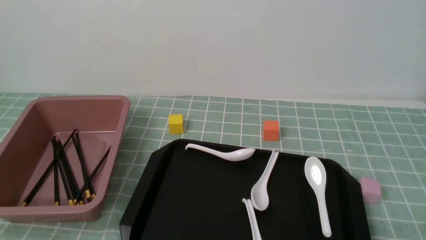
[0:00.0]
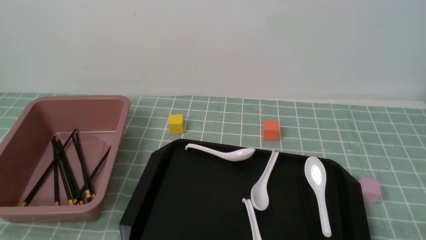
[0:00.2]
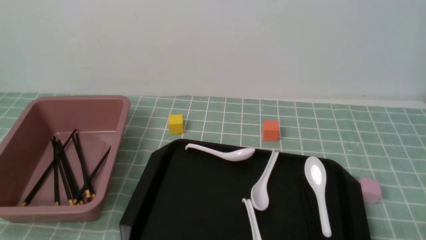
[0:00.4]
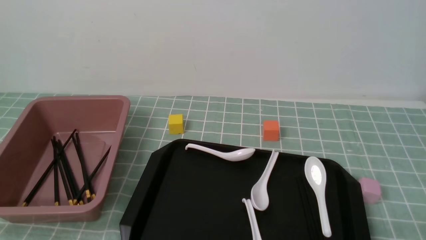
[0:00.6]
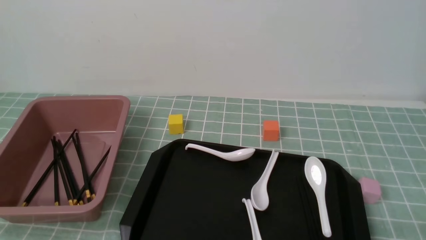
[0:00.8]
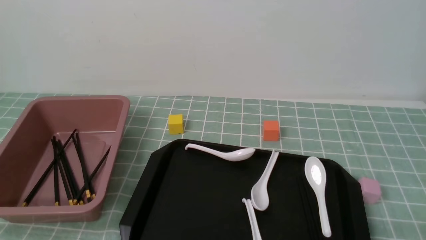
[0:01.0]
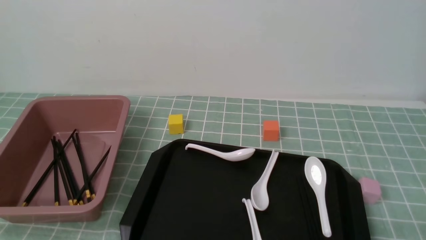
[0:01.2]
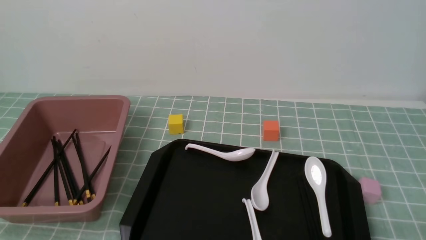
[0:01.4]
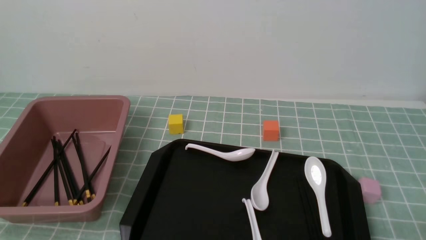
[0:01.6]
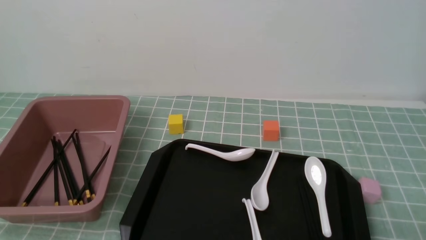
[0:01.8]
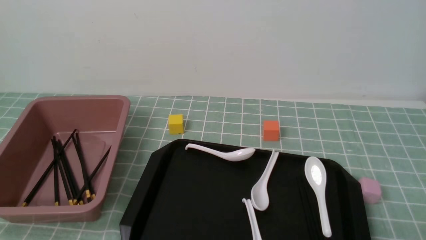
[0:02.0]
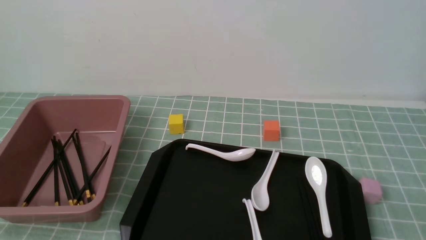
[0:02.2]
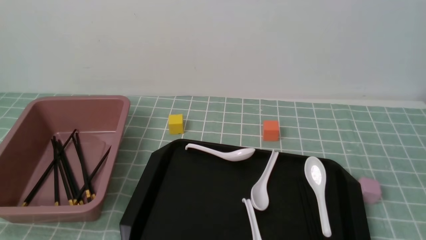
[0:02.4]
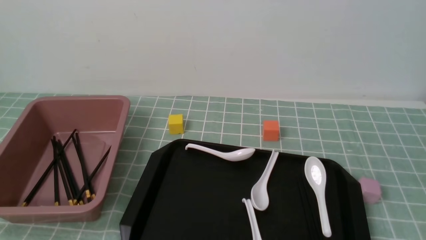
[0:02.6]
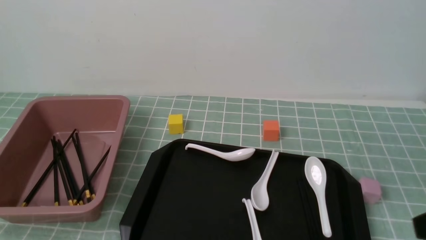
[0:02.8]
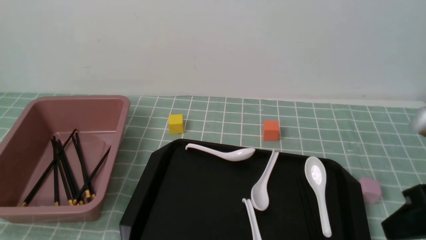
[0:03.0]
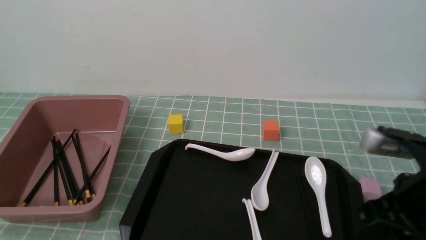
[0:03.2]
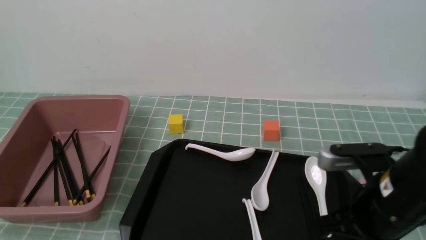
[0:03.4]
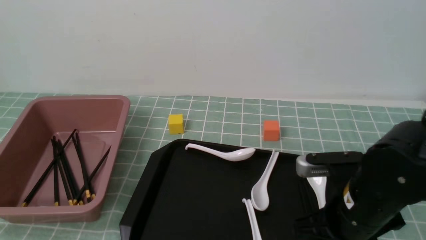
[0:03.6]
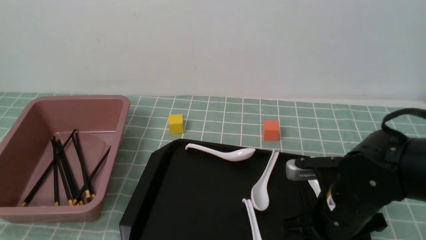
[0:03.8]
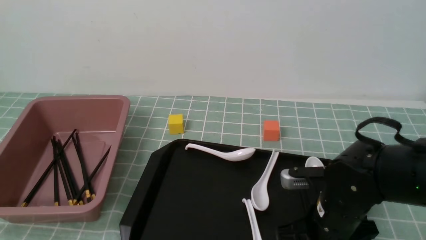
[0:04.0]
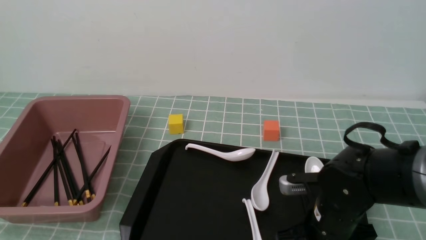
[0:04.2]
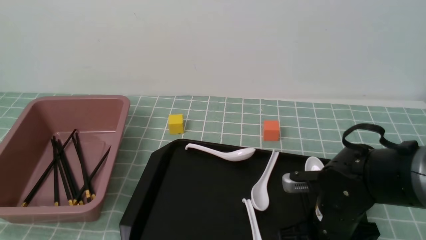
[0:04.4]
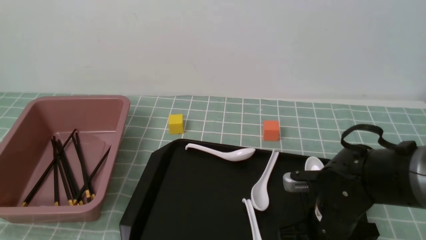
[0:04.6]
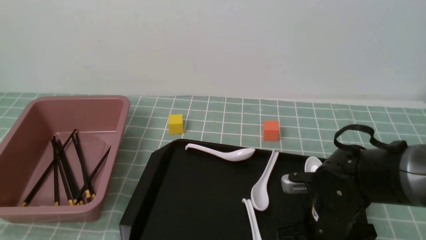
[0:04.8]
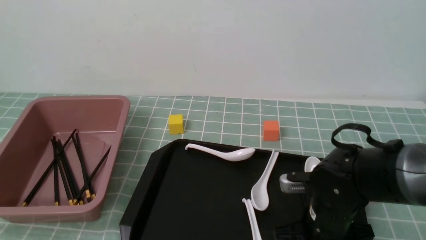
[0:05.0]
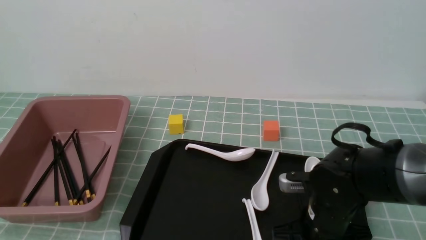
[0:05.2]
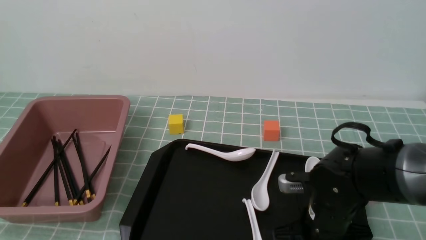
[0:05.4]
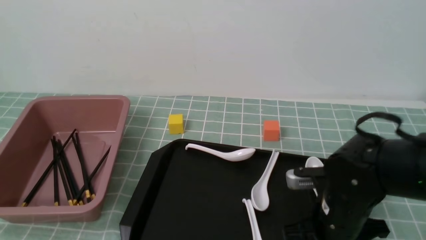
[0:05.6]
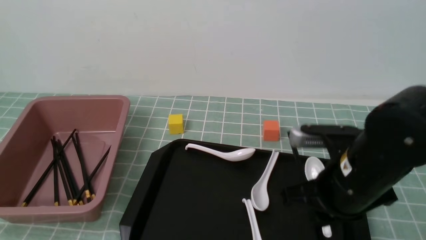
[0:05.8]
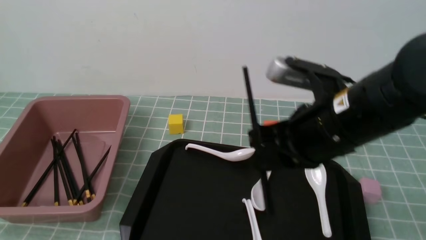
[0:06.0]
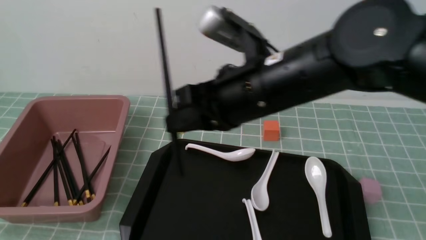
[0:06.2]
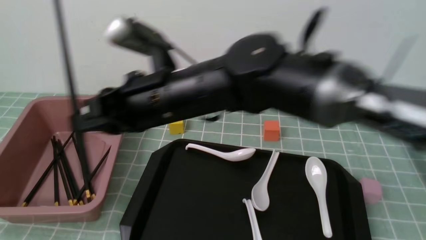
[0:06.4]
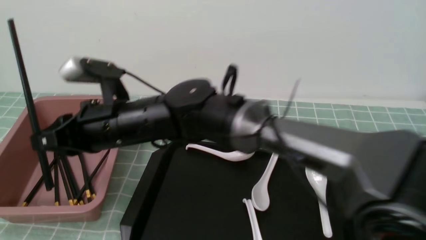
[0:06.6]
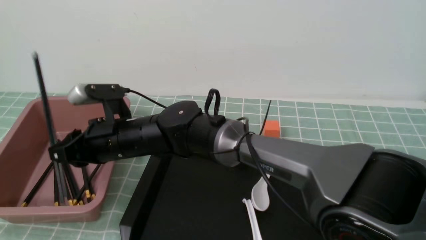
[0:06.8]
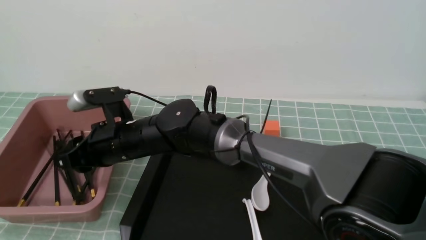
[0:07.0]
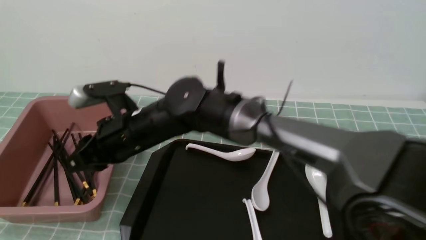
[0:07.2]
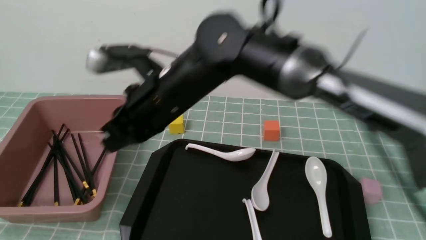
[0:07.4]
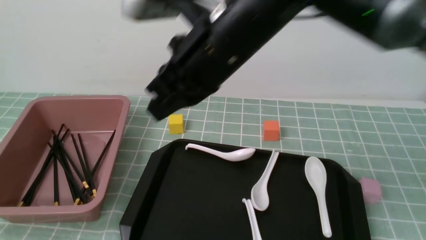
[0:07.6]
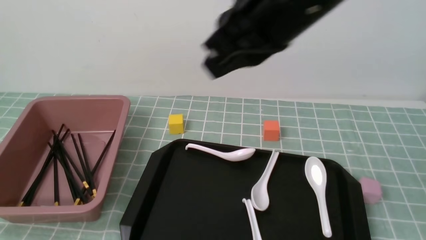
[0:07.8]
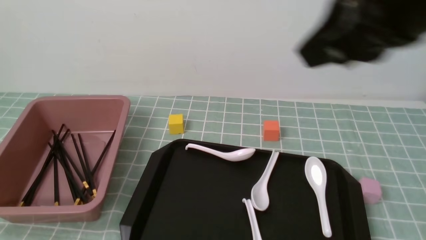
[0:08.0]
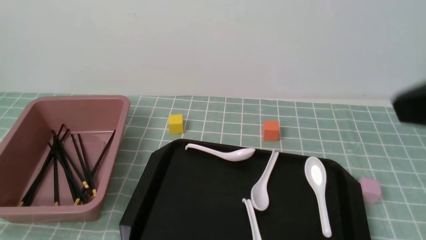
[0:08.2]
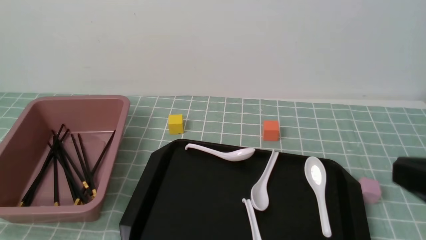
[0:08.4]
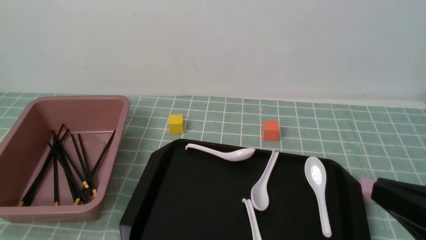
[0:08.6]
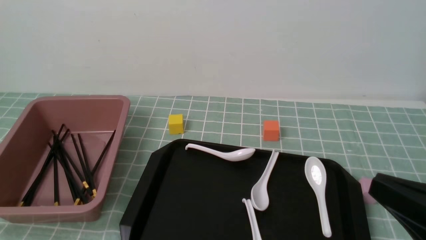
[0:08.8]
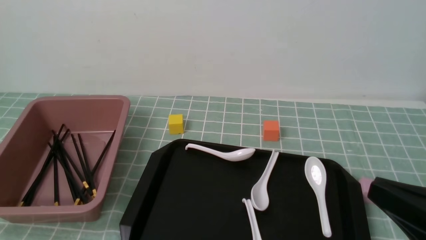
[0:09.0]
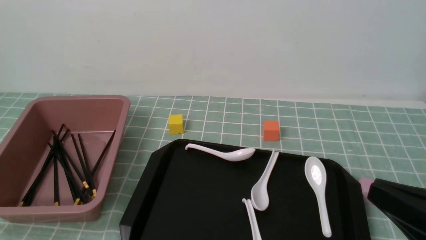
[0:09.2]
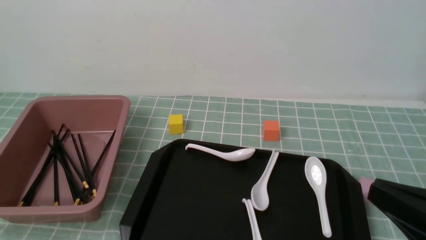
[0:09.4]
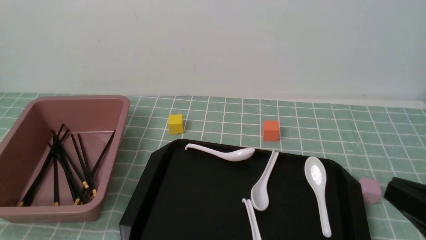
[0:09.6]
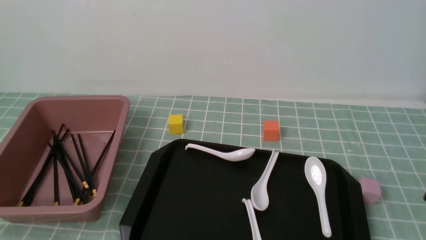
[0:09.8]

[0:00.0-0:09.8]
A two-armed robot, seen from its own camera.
Step, 0:00.0 to 0:05.8: use the right arm to grab a pair of chopsticks.
Step, 0:06.0 to 0:07.2: use the right arm to put the chopsticks into the lunch box.
0:02.8 to 0:04.2: The right gripper travels downward, to the left and forward by approximately 25 cm, and opens.
0:04.2 to 0:05.6: The right gripper closes.
0:05.6 to 0:07.0: The right gripper shifts approximately 25 cm to the left, and opens its fingers.
0:07.0 to 0:08.4: The right gripper travels to the right and backward by some 40 cm, and closes.
0:08.4 to 0:09.8: The right gripper moves downward, approximately 10 cm.

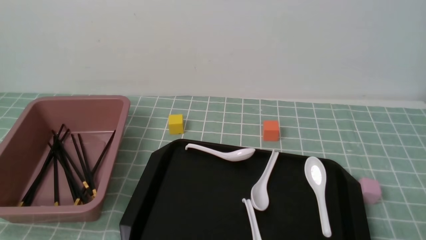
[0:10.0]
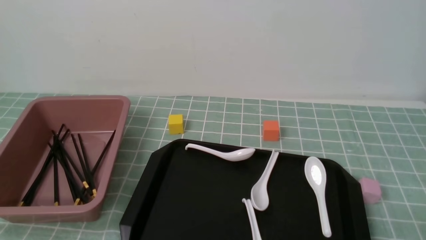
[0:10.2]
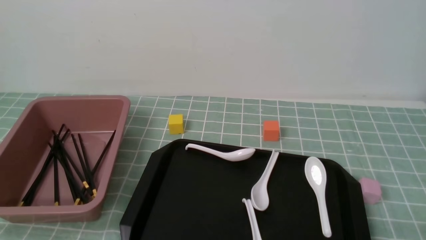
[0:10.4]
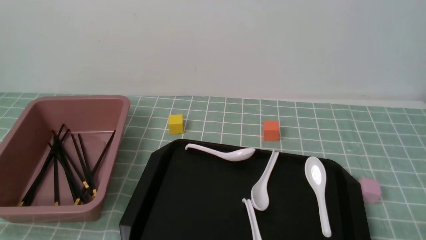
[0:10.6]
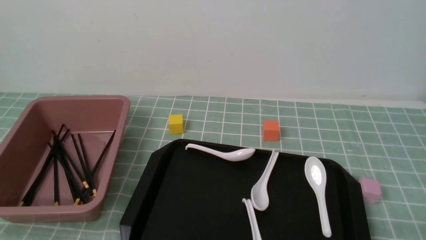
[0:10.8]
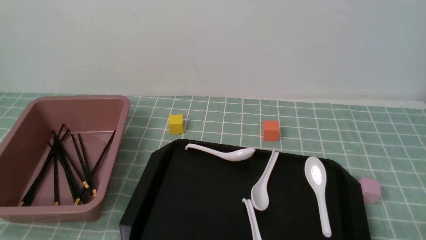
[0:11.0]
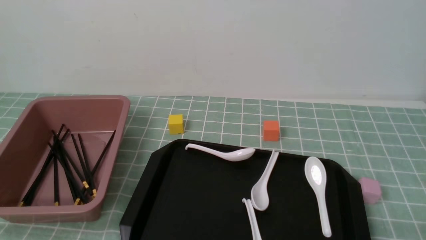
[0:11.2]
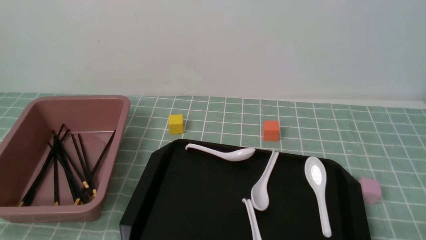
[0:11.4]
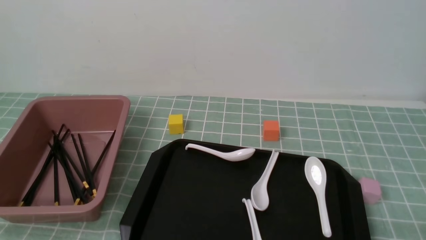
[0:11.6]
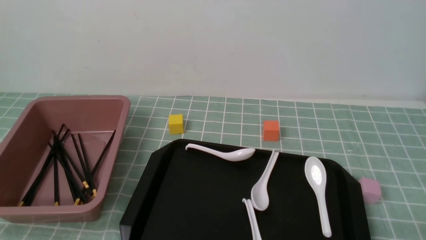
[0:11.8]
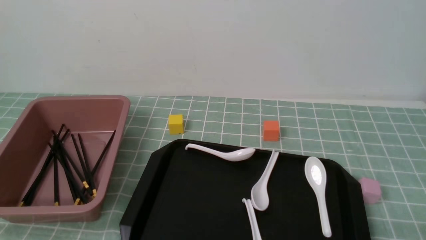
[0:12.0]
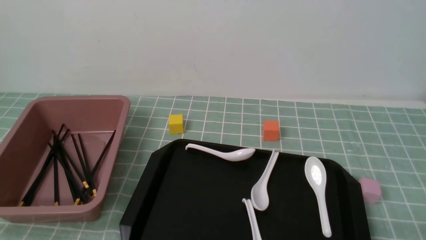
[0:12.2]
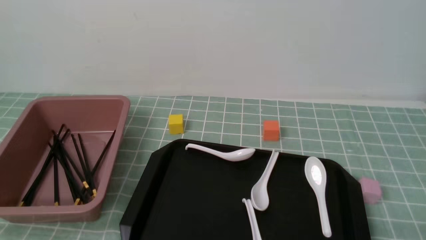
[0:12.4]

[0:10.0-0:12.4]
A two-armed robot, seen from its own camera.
0:11.2 to 0:12.4: Both grippers stay about where they are.

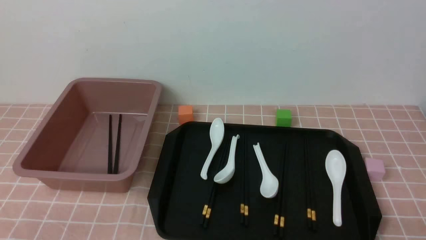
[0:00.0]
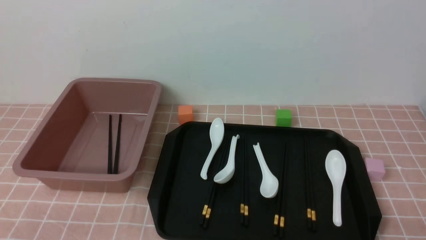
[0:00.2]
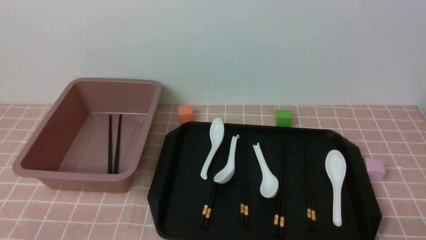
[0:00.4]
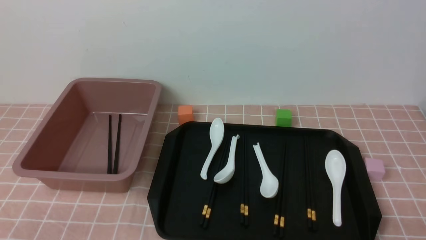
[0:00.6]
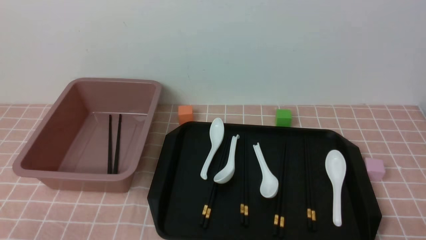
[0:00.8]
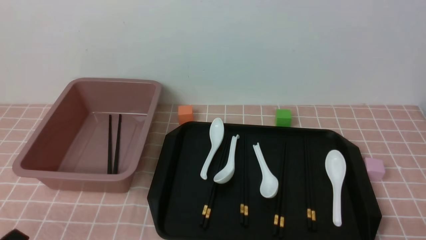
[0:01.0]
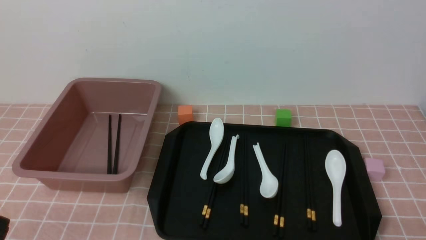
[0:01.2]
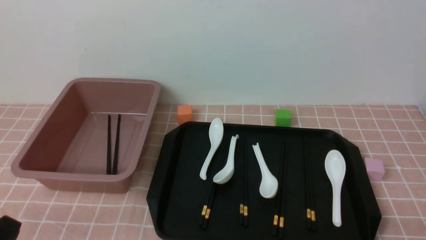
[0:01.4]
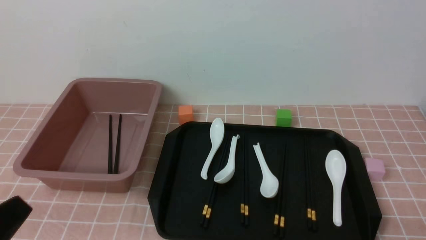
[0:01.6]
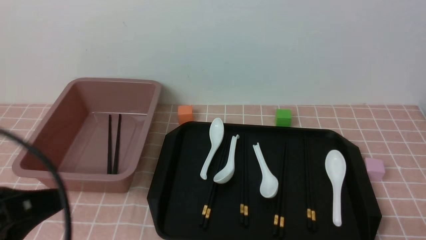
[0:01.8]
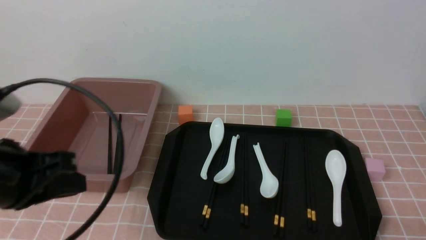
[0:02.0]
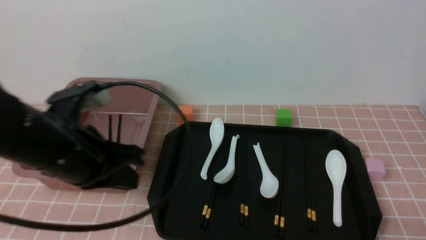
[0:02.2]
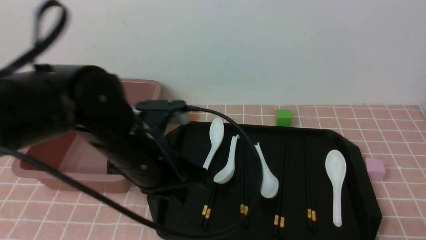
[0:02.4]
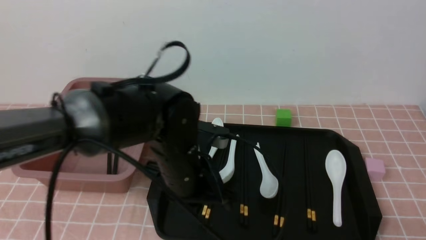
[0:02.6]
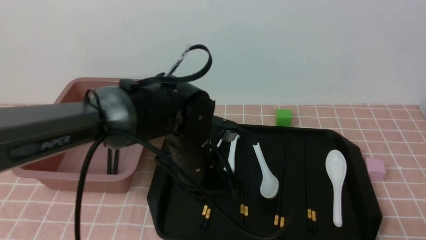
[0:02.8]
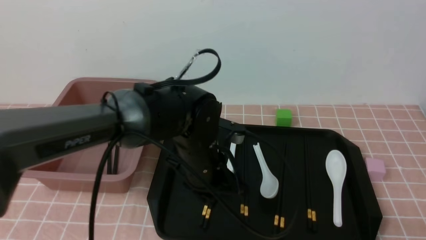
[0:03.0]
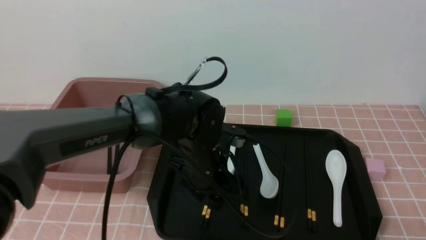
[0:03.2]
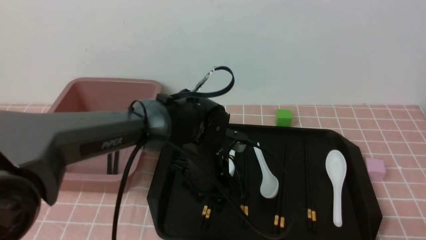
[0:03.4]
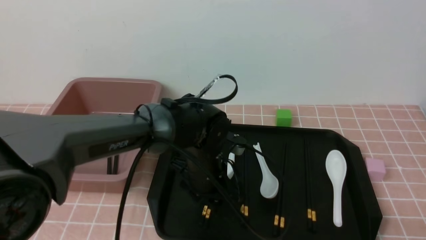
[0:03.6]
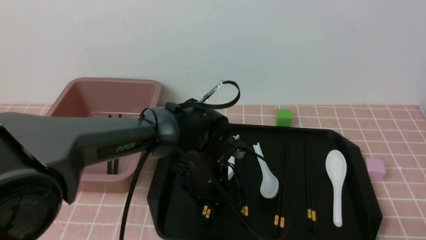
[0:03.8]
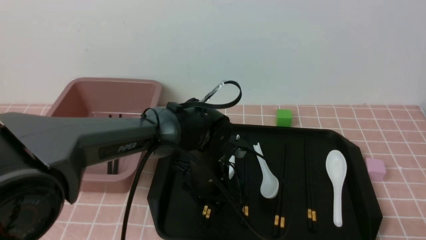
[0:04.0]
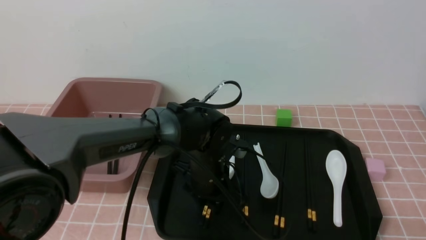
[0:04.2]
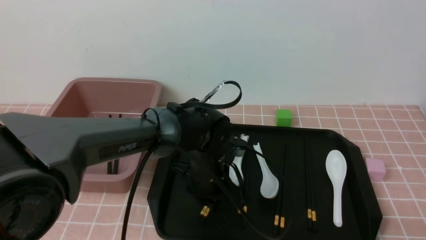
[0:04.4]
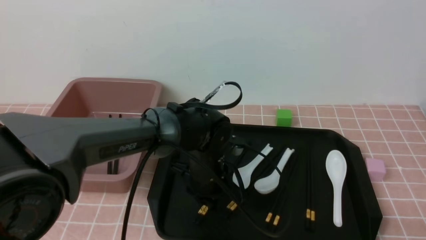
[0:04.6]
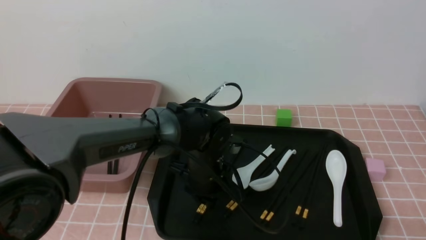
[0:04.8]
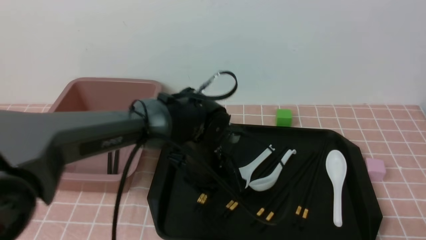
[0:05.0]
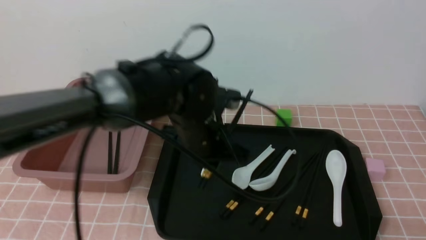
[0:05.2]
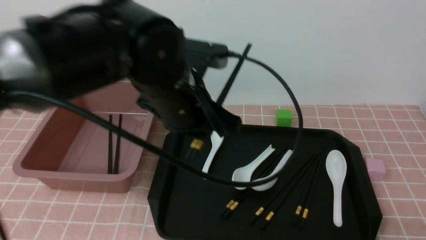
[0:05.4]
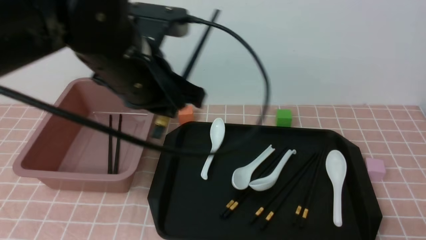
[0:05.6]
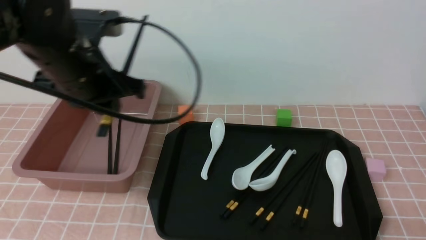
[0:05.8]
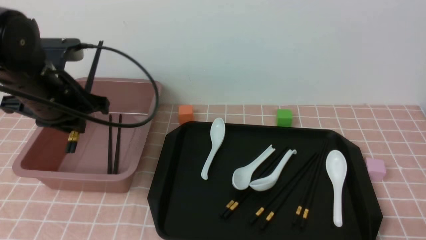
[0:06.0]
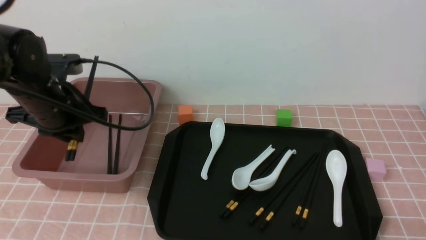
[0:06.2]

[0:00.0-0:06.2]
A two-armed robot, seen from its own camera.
Step, 0:00.0 to 0:05.2: use the left arm to grab a pair of chopsticks.
0:00.0 to 0:01.6: The left gripper travels upward by some 10 cm.
0:01.6 to 0:03.2: The left gripper moves forward and to the right, roughly 35 cm, and opens.
0:03.2 to 0:04.6: The left gripper closes its fingers.
0:04.6 to 0:06.2: The left gripper is displaced to the left and upward by roughly 25 cm.
